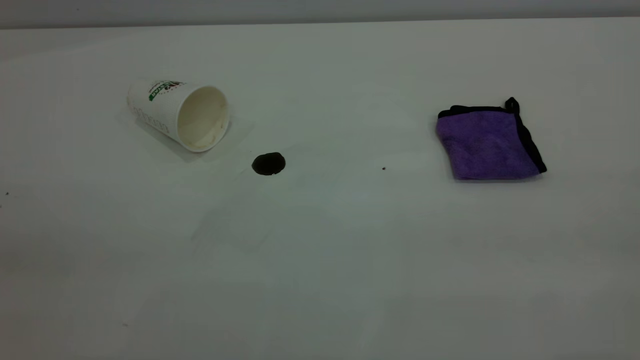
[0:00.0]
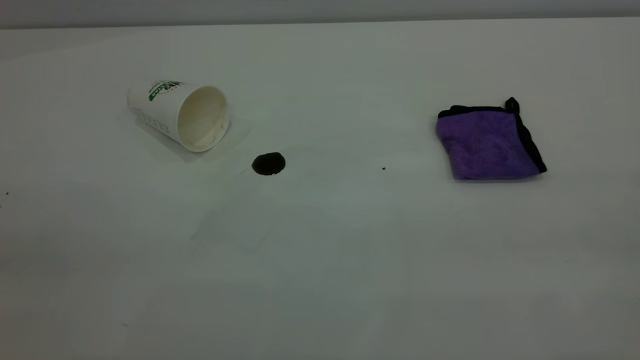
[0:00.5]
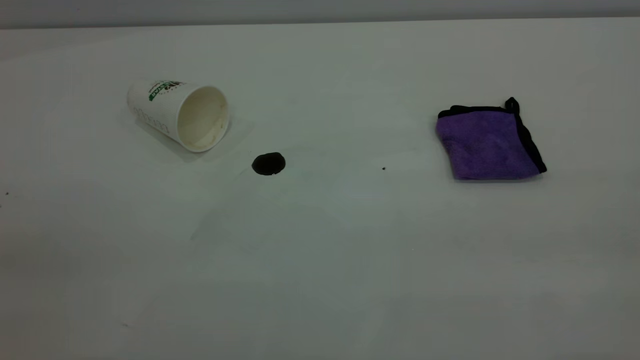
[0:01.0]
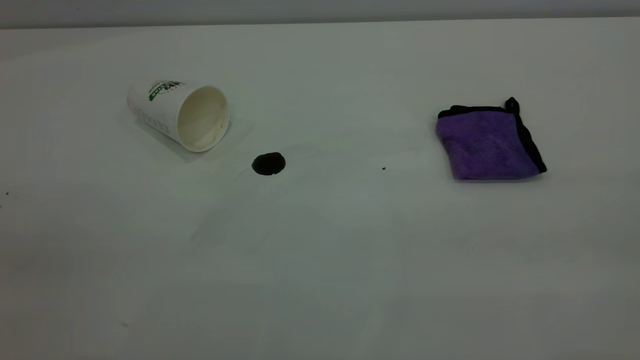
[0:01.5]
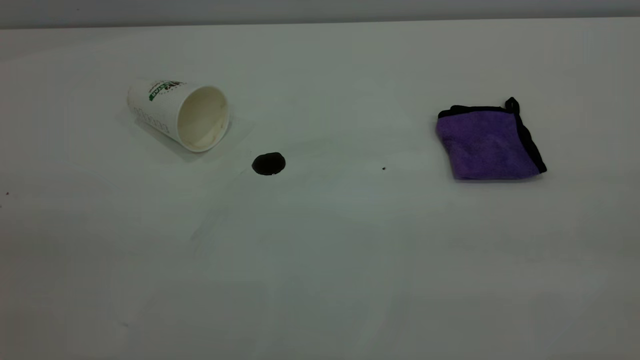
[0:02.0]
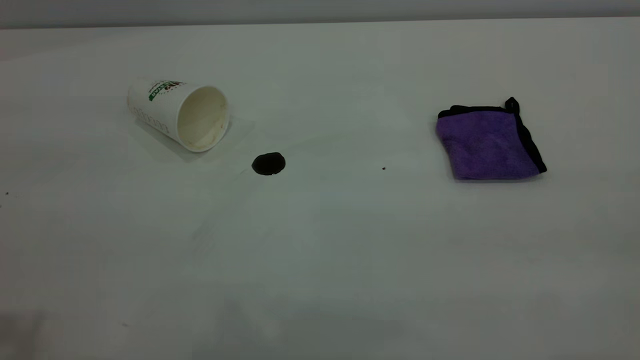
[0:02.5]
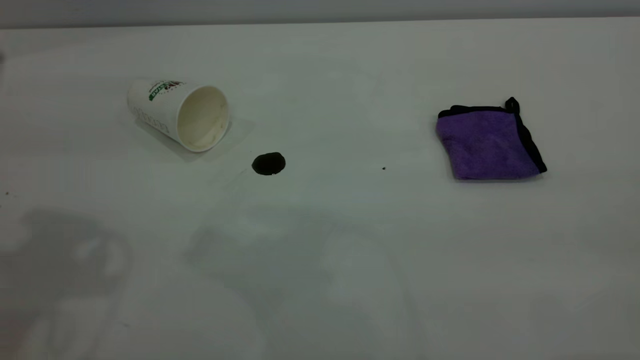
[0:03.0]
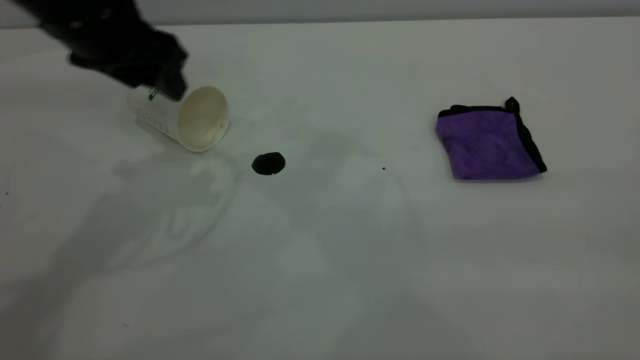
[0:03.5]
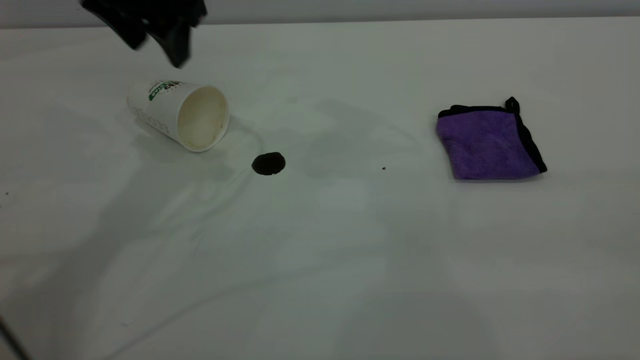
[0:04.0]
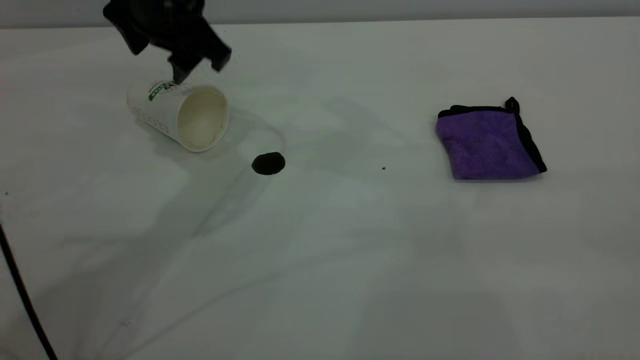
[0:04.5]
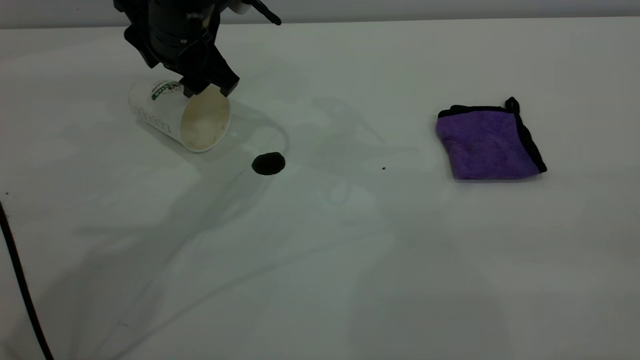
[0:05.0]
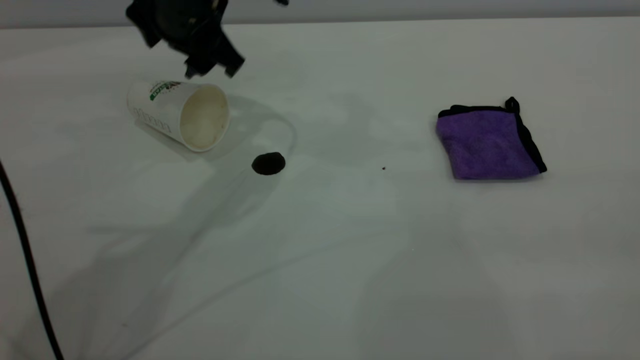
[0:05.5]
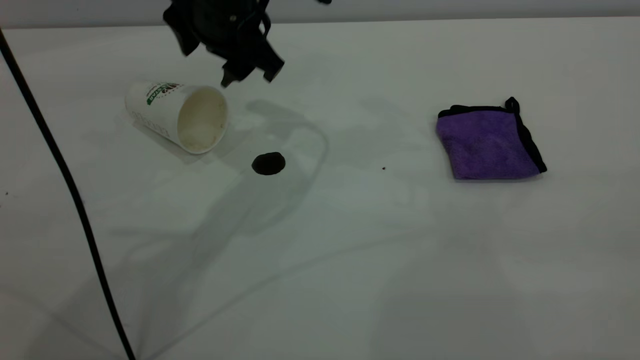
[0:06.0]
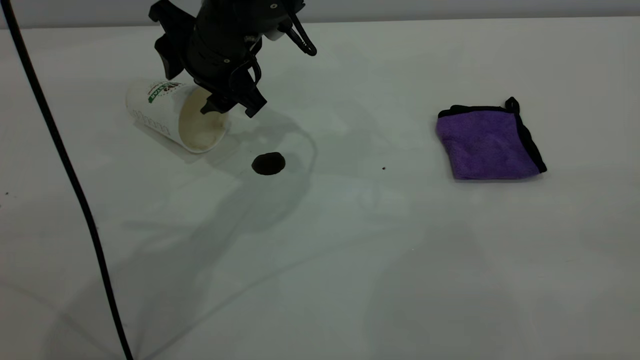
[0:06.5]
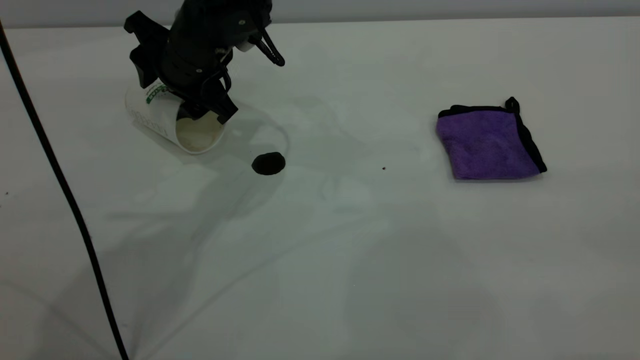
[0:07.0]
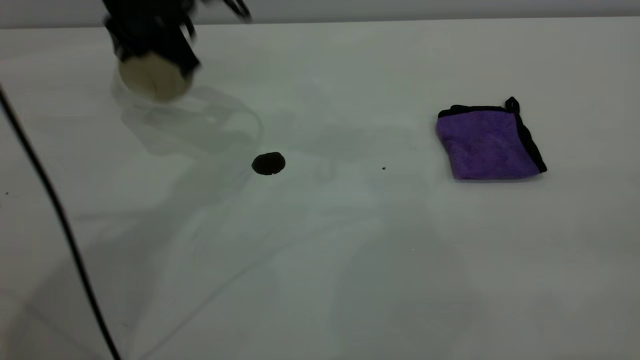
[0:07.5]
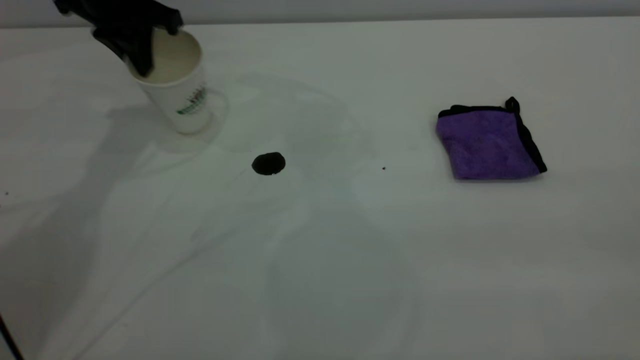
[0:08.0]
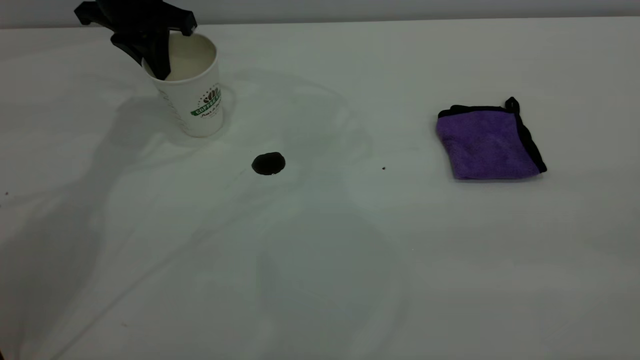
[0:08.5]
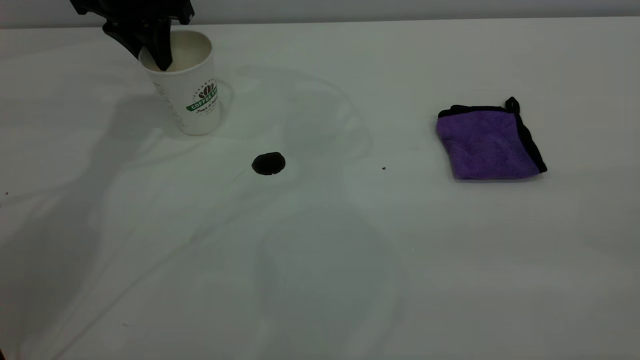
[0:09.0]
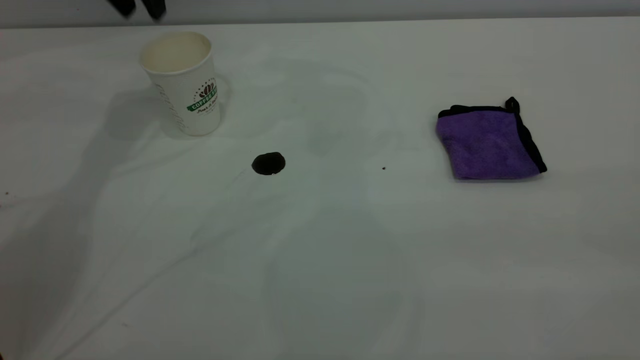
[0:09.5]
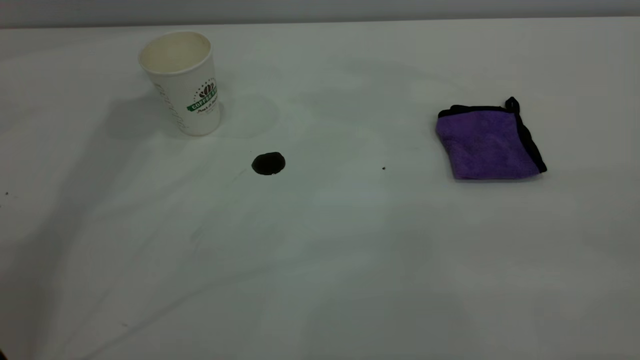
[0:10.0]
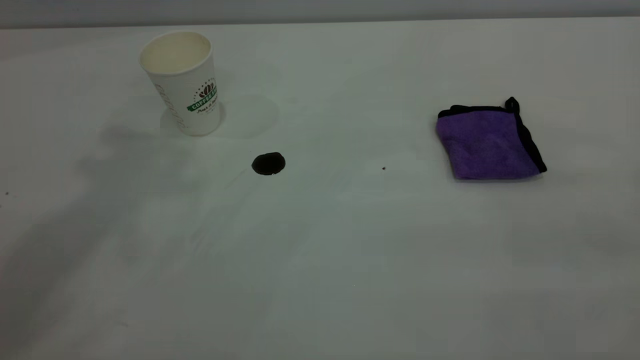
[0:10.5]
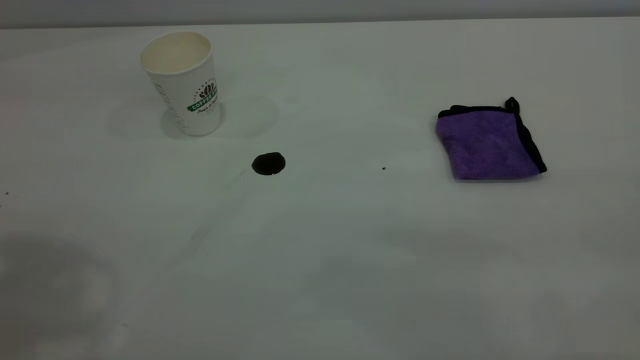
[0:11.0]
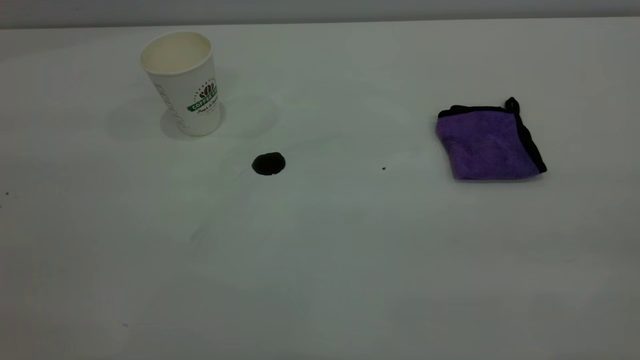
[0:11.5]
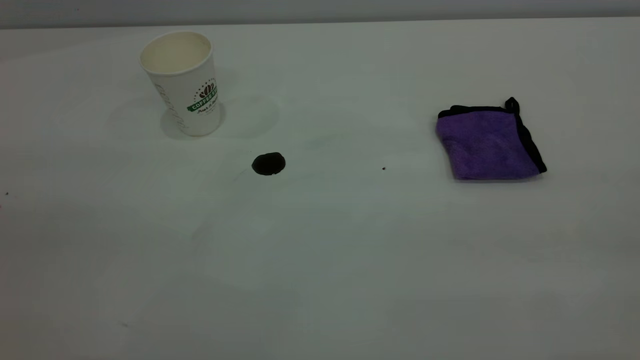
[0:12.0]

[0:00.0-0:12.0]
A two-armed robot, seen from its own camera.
Task of the whole recording: the left gripper pick up the fallen cup and place it upright, the right gripper grasp the purple rag and wipe the coffee stain on the table, the right gripper put the purple rag back in its original position.
Step, 0:00.0 to 0:09.0: Stand the paper cup upright.
0:02.0 to 0:04.0: The left gripper goes roughly 40 cm forward.
0:04.0 to 0:06.0: The left gripper goes approximately 10 cm to the right and downward.
0:06.0 to 0:08.0: The left gripper is displaced to the left and forward by approximately 15 cm, and closes its fingers.
0:08.0 to 0:10.0: The left gripper heads upward, covering some 25 cm, and opens.

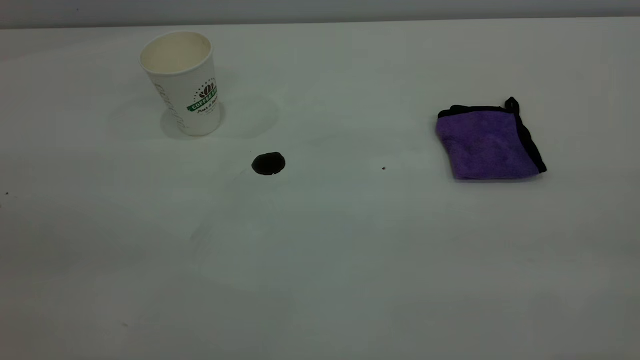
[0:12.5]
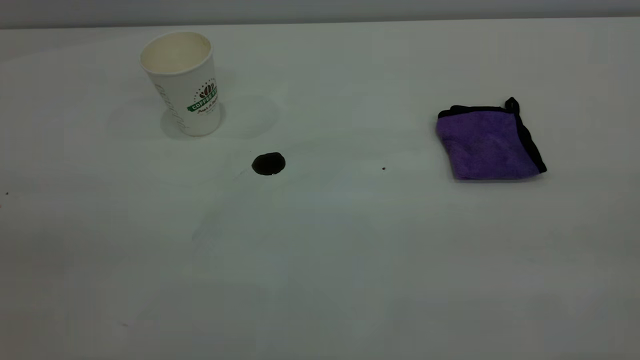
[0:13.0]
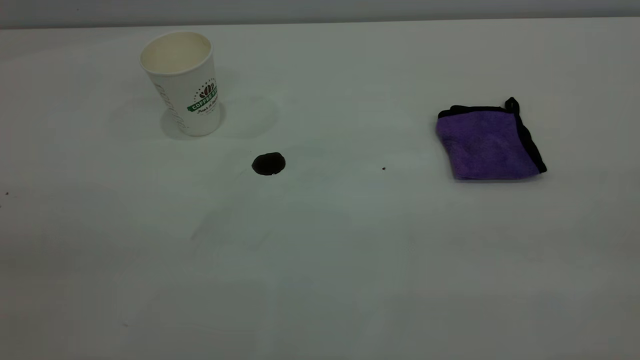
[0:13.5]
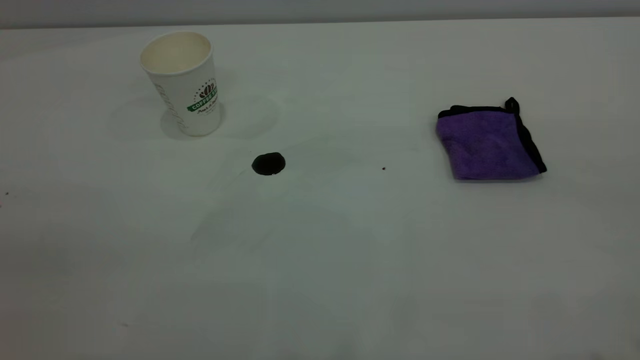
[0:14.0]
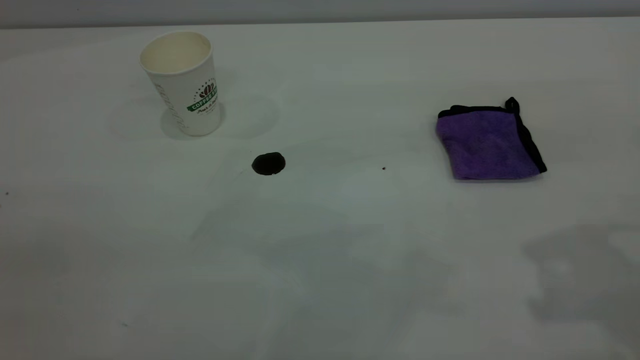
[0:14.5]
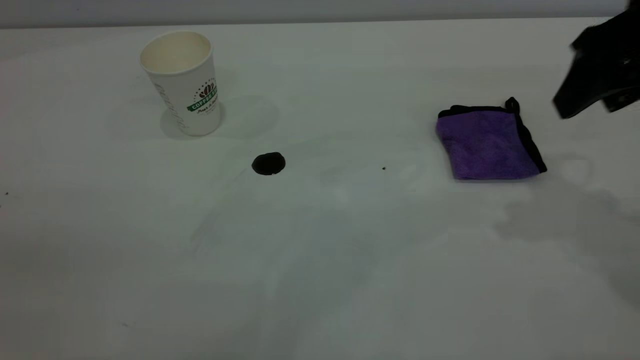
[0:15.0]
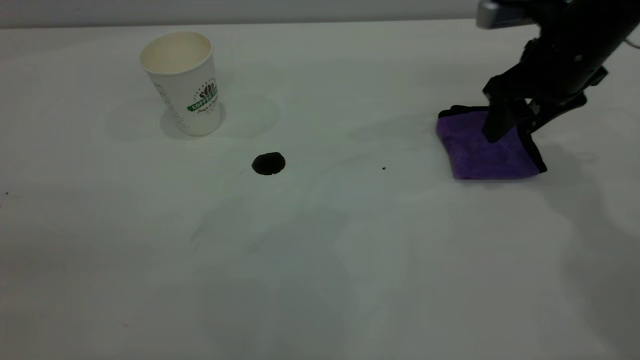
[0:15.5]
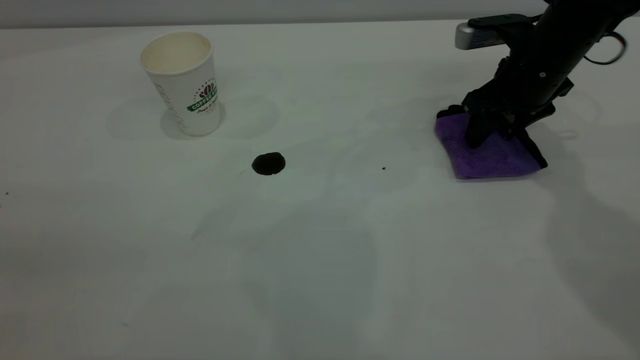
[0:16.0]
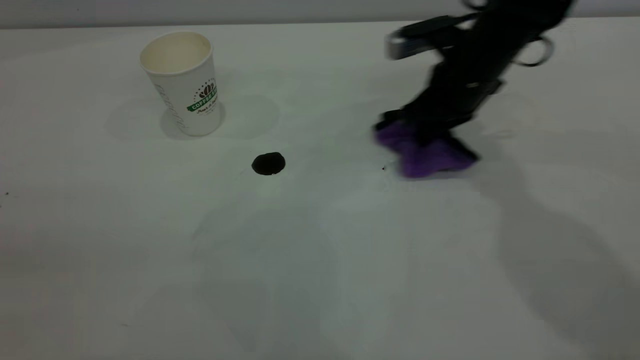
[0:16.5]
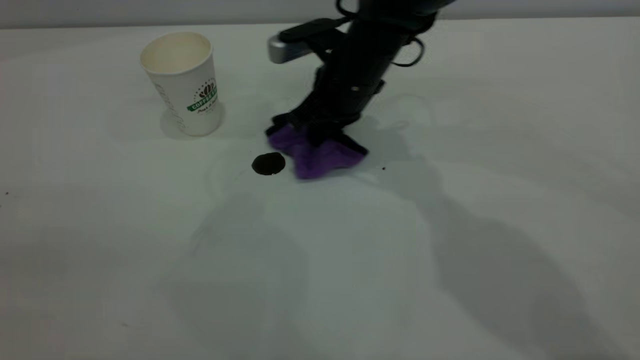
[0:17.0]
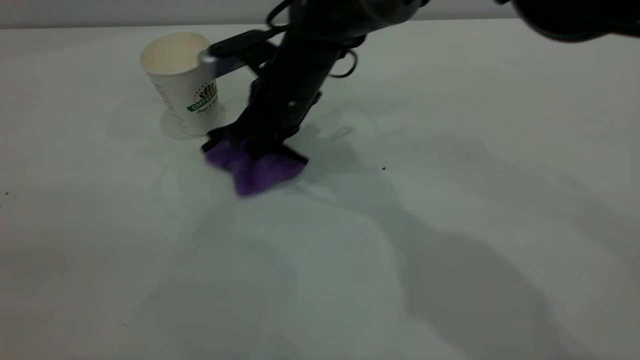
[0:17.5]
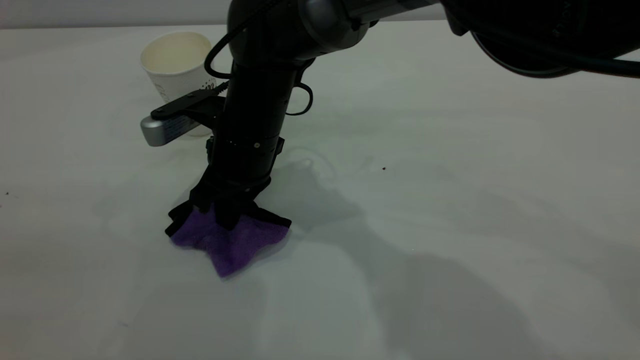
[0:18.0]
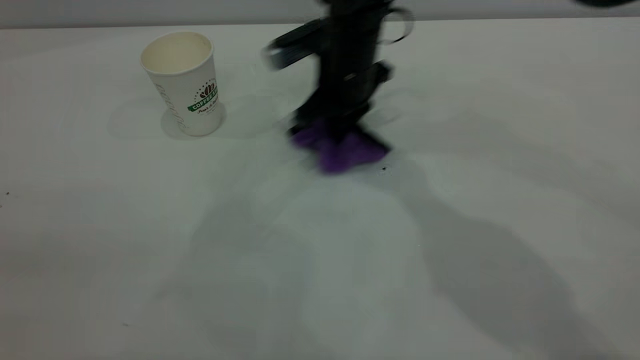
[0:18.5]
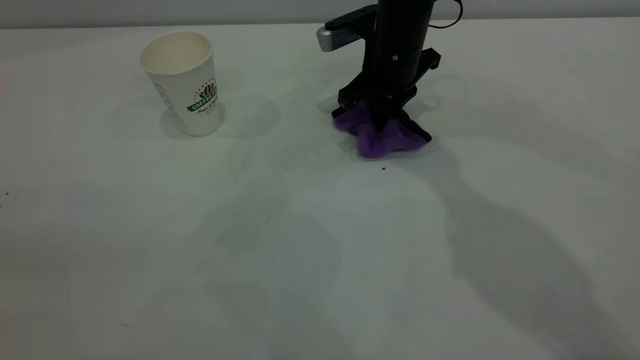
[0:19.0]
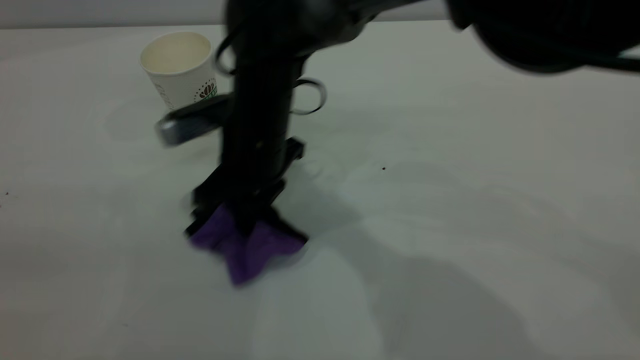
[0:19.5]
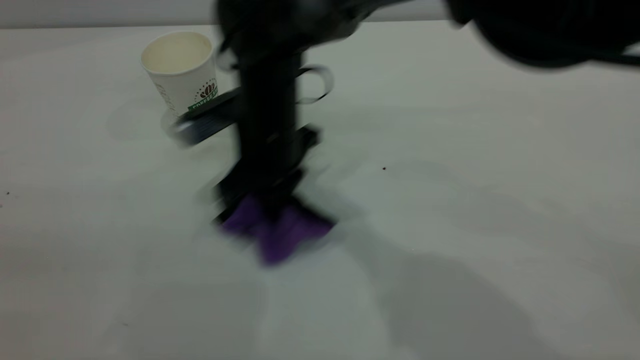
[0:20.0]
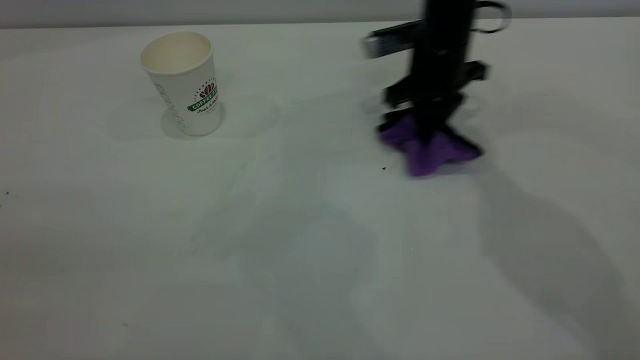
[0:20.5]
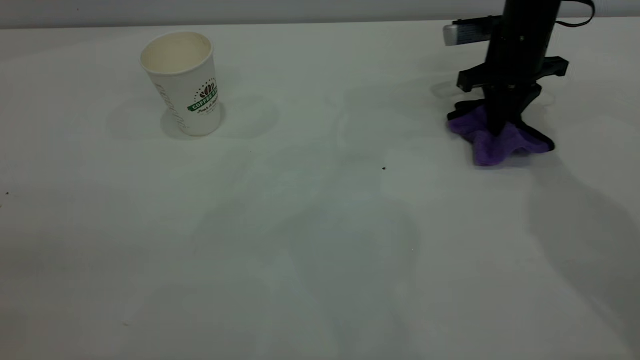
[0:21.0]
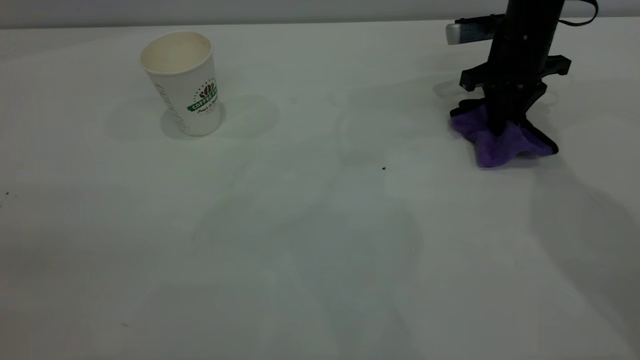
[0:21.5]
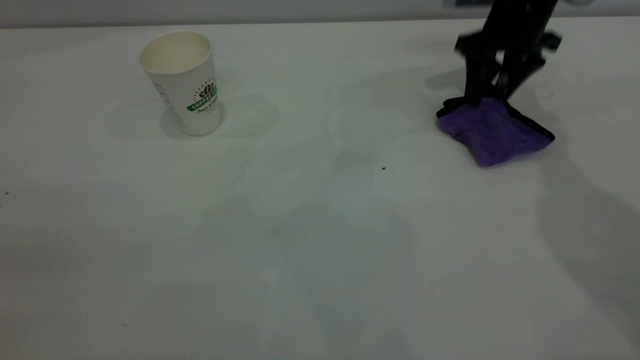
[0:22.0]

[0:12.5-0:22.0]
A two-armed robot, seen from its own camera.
Task of the whole recording: the left gripper pick up the fallen cup and place it upright, the right gripper grasp the purple rag and wipe the coffee stain on the table, the right gripper put the purple rag back in its original position.
0:14.5 to 0:16.5: The right gripper shifts approximately 35 cm downward, forward and to the left, and closes its fingers.
0:16.5 to 0:18.0: The right gripper goes about 20 cm to the left.
0:18.0 to 0:20.0: The right gripper travels to the right and back again, roughly 15 cm each way.
0:20.0 to 0:22.0: The right gripper moves to the right and forward, about 30 cm, and opens its fingers.
